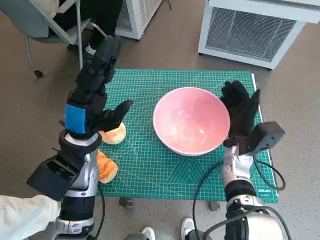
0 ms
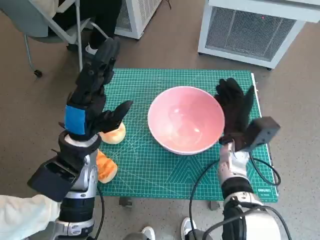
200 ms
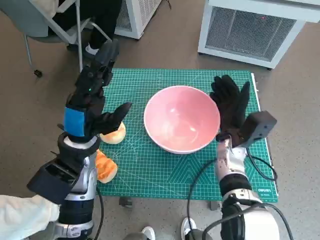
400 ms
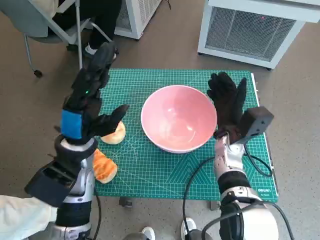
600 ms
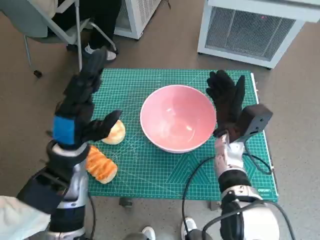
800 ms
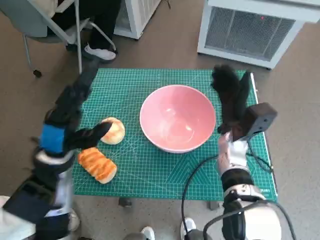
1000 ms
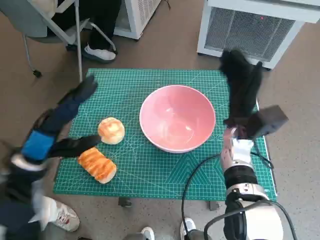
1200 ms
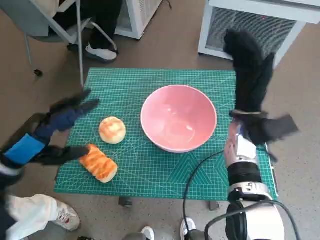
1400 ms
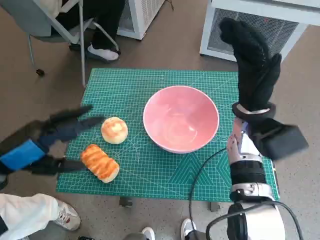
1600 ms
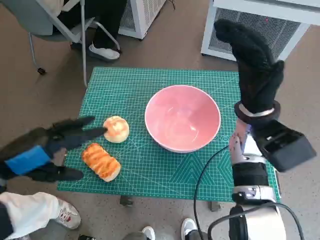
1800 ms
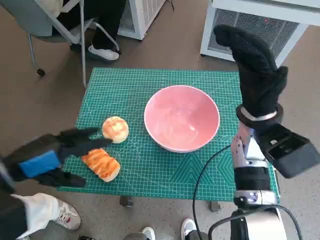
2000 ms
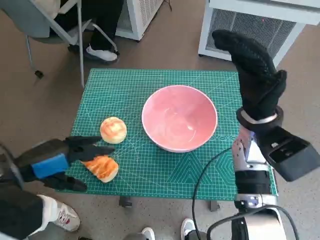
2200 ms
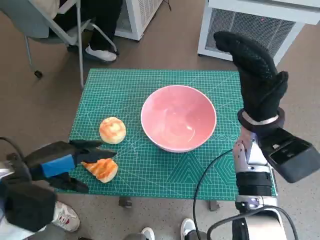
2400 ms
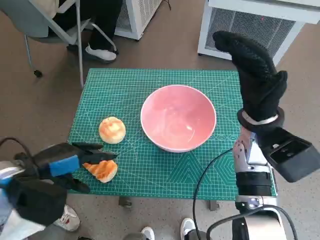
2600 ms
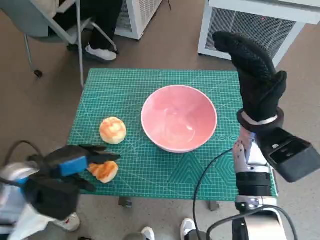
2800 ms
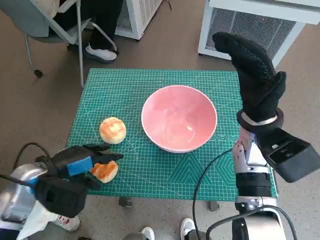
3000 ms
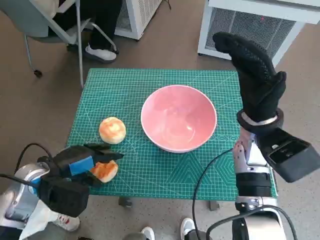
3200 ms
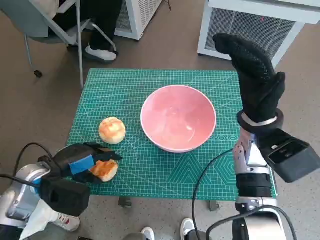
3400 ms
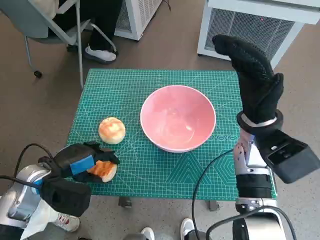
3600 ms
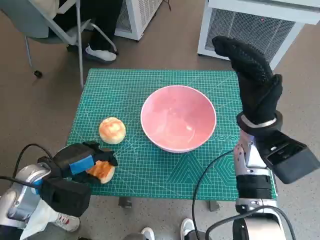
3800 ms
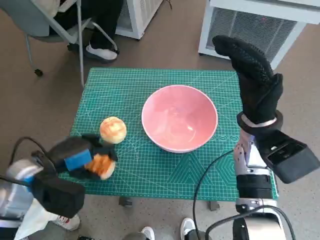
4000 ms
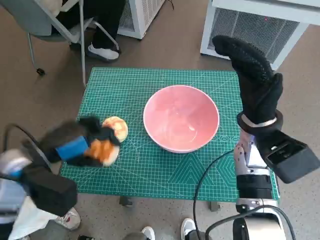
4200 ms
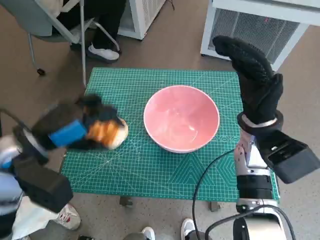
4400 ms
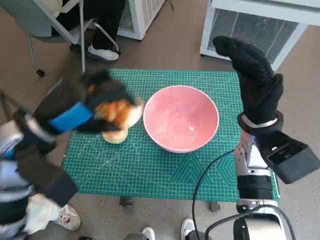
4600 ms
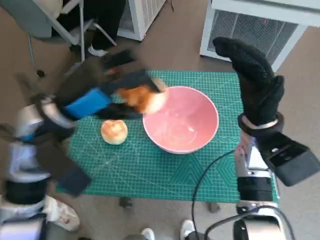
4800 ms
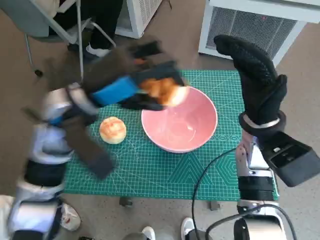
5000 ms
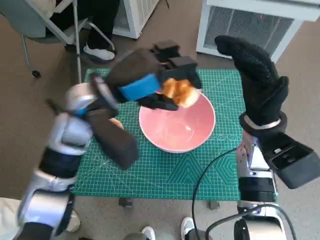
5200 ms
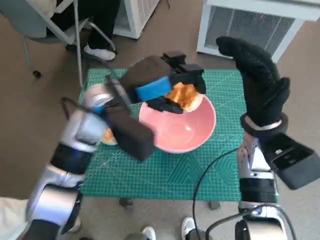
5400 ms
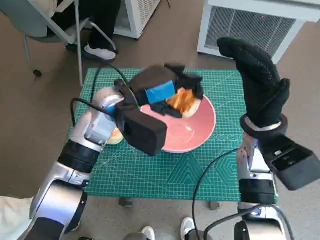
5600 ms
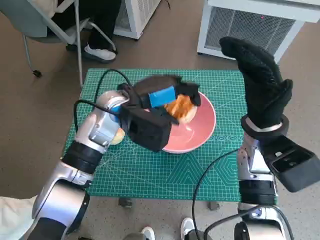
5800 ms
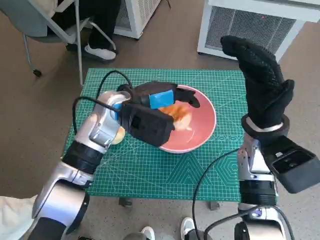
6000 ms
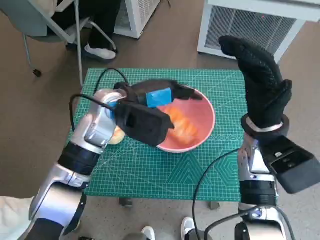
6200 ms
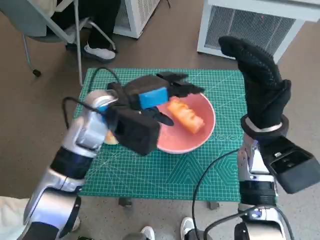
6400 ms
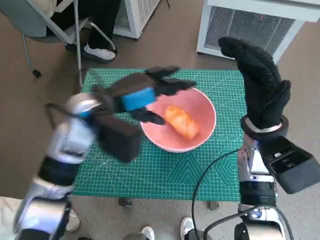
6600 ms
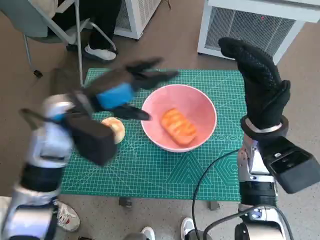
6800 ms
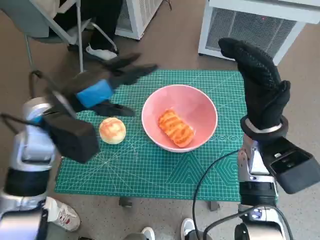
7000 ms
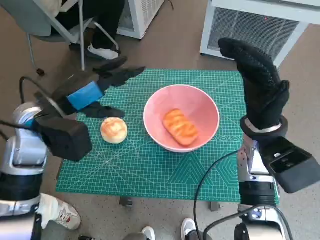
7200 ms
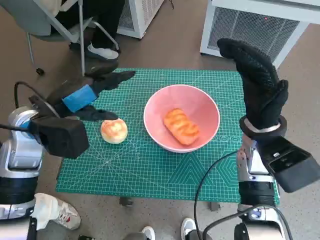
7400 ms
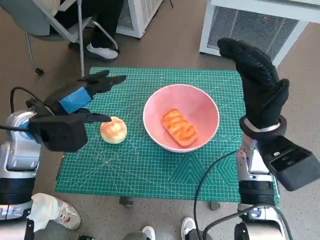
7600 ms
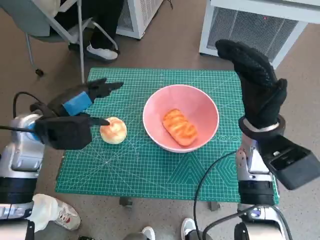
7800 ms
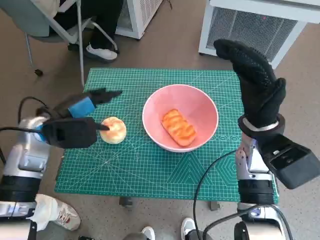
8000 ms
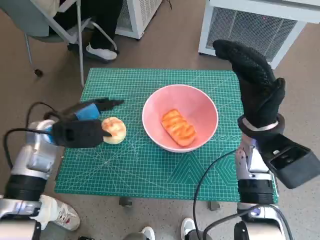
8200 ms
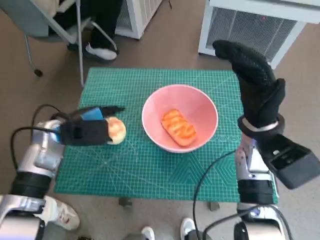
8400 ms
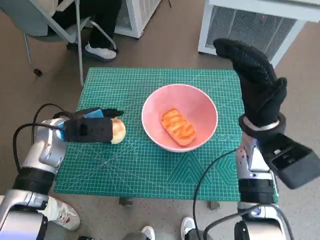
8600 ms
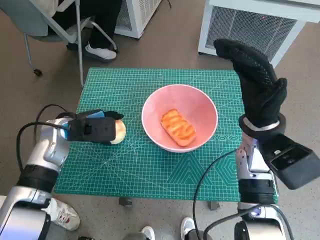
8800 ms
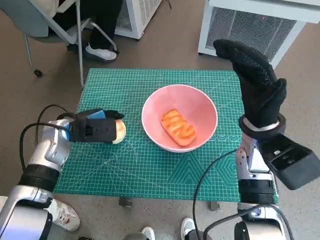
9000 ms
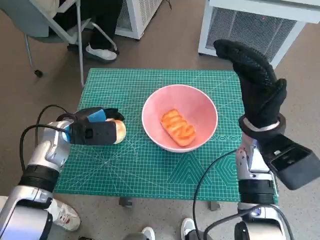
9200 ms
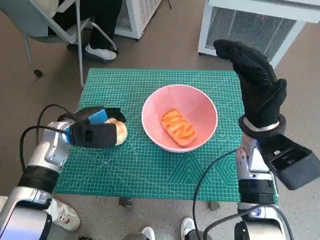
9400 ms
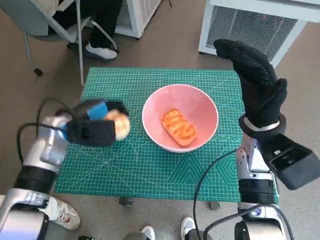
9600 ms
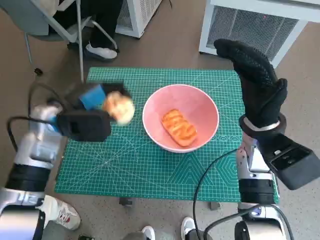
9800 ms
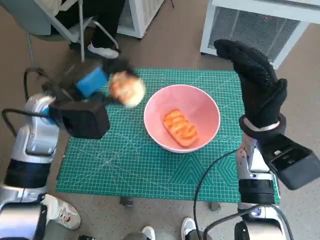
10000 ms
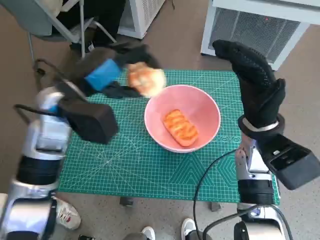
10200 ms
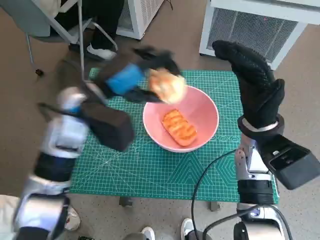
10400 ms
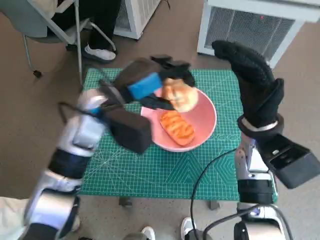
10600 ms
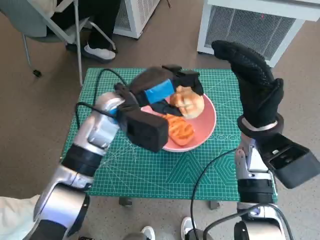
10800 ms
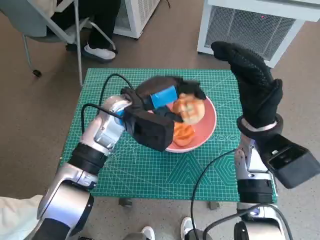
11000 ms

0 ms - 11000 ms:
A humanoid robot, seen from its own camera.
Task of the whole recording: Push the bowl to the center of the table and put the bread into the bowl.
Step, 1200 ms - 3600 ms: Grasp the long bread with left hand.
Step, 3800 ms - 6400 ms: Place the long bread in pink bowl with left hand.
Step, 6600 ms - 9200 ms: Grasp the round bread with left hand.
0 ms - 1600 ms: The right hand travels upward by about 10 cm, while the left hand travels to the left and backward by approximately 15 cm.
1600 ms - 3200 ms: The left hand shifts about 10 cm downward.
3200 ms - 4800 ms: The left hand shifts about 15 cm upward and to the right.
4800 ms - 6200 ms: The left hand is displaced to the right and forward by about 10 cm.
6200 ms - 7800 ms: The left hand moves to the left, some 15 cm.
7800 ms - 9400 ms: The left hand travels downward by roughly 5 cm.
9400 ms - 11000 ms: The left hand travels to the right and upward by some 15 cm.

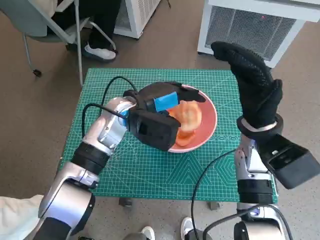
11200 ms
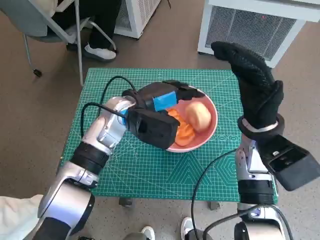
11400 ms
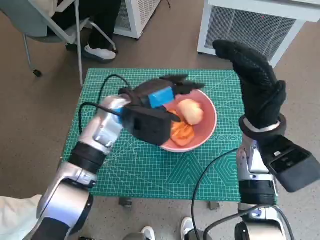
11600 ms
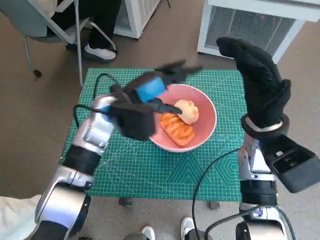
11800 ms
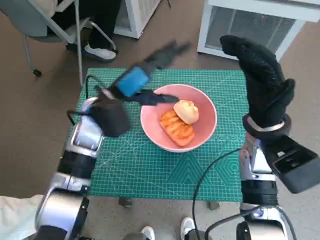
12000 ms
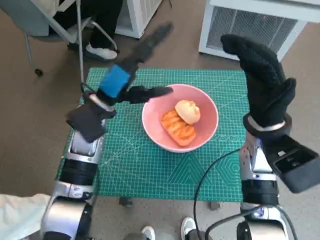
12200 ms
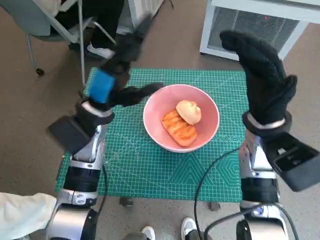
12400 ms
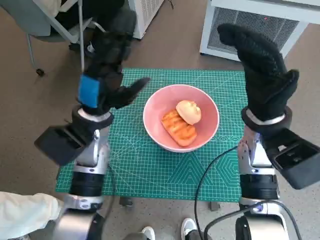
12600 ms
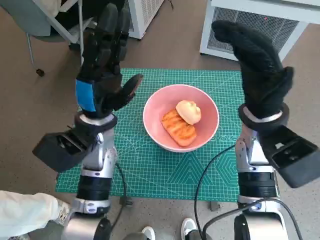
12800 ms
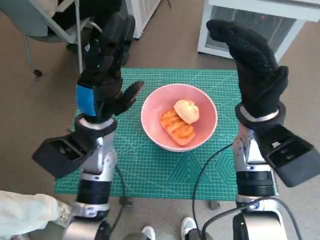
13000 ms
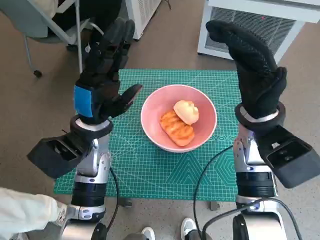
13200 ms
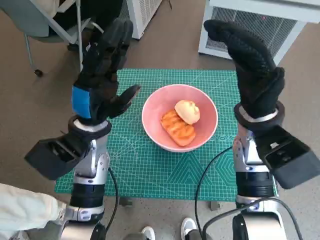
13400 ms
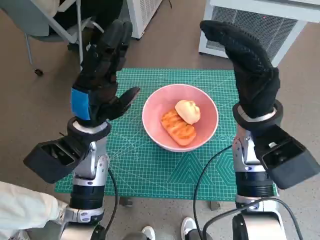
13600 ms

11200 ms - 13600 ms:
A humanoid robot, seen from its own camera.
Task of the whole recording: Push the bowl to the center of the table and put the bread into the bowl.
11200 ms - 12400 ms: The left hand is displaced to the left by about 5 cm.

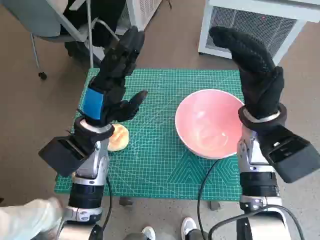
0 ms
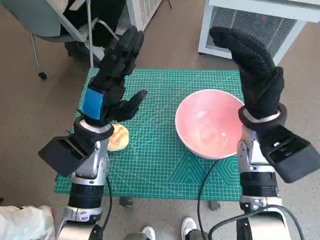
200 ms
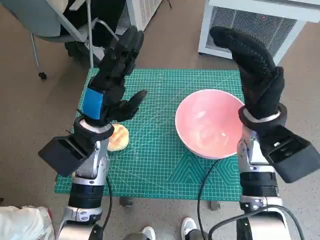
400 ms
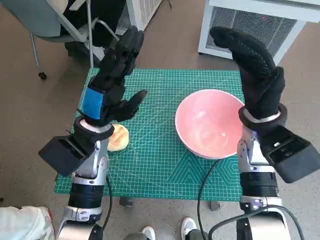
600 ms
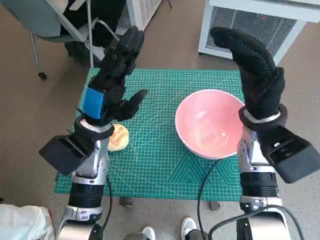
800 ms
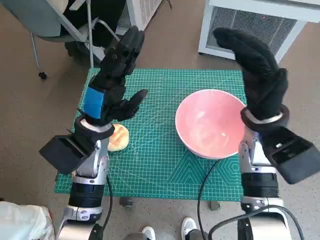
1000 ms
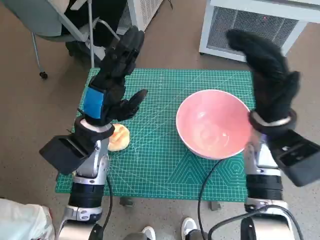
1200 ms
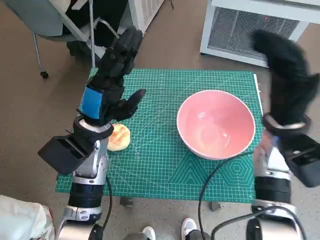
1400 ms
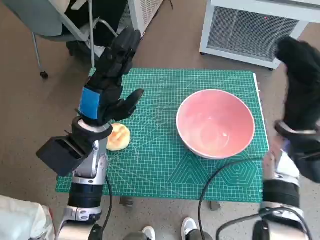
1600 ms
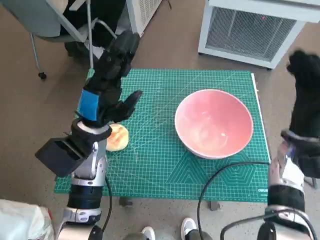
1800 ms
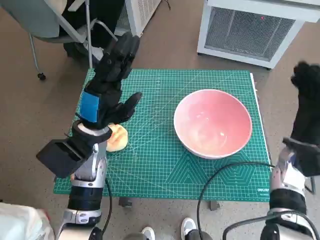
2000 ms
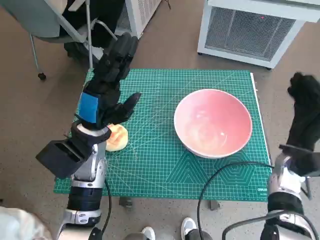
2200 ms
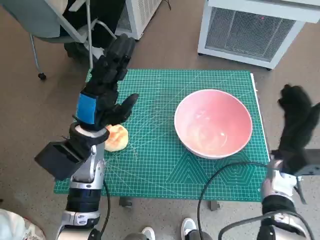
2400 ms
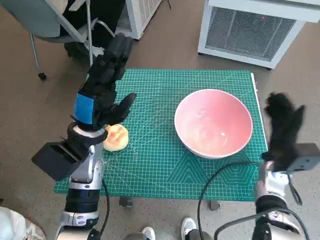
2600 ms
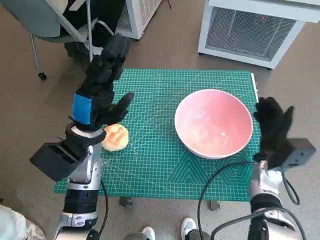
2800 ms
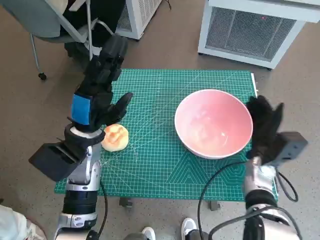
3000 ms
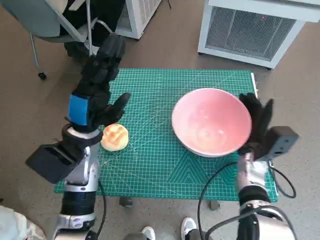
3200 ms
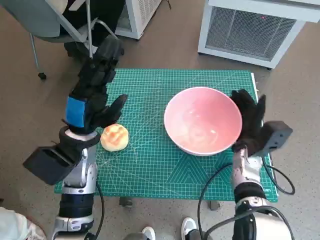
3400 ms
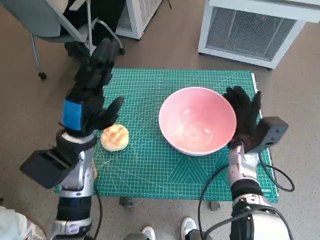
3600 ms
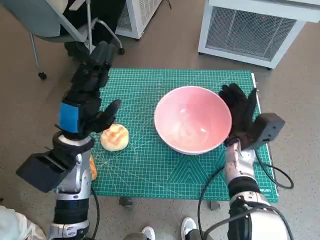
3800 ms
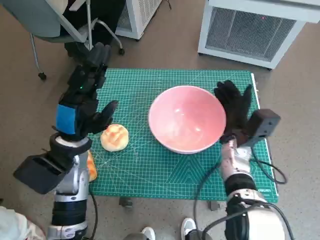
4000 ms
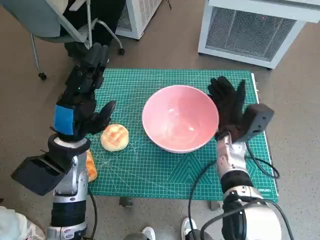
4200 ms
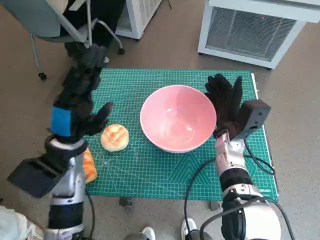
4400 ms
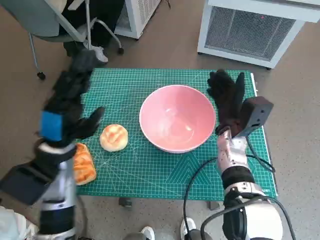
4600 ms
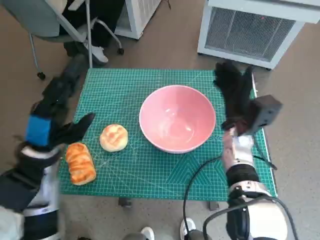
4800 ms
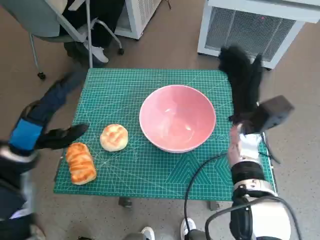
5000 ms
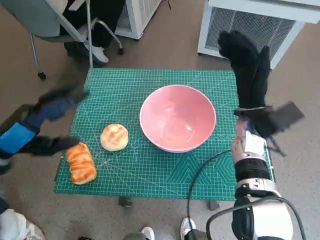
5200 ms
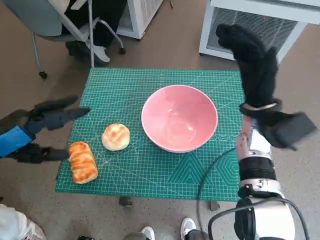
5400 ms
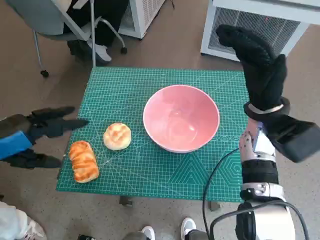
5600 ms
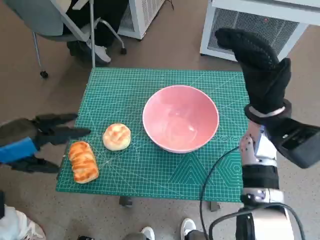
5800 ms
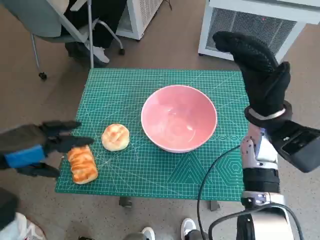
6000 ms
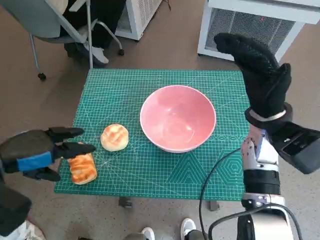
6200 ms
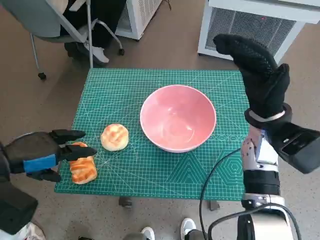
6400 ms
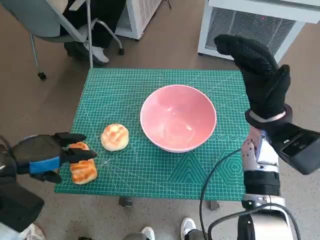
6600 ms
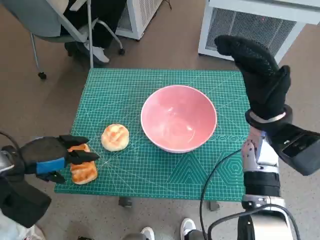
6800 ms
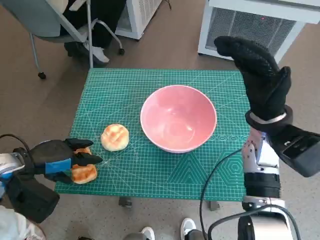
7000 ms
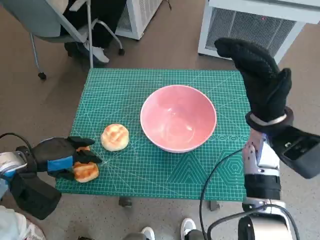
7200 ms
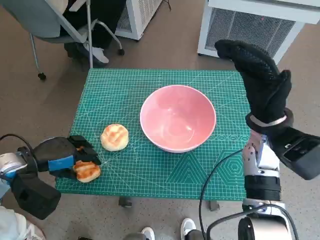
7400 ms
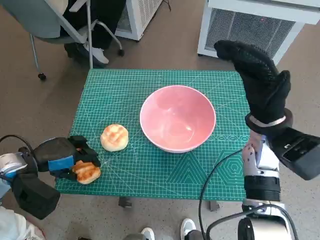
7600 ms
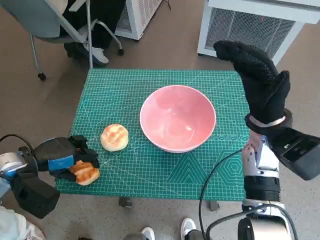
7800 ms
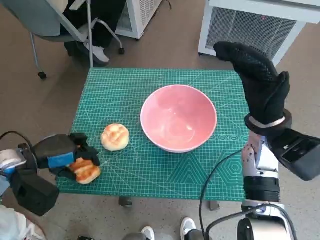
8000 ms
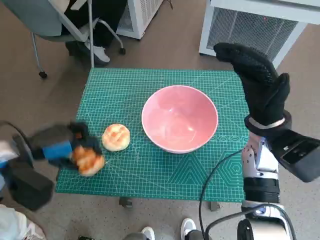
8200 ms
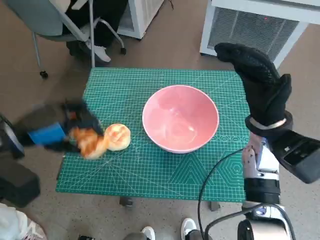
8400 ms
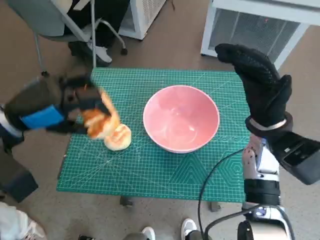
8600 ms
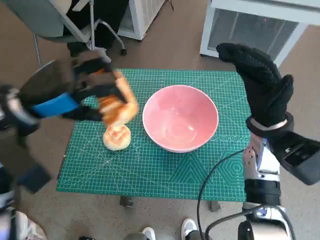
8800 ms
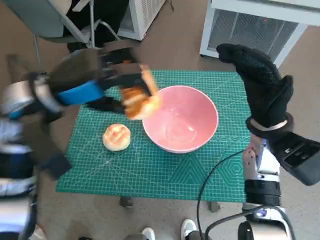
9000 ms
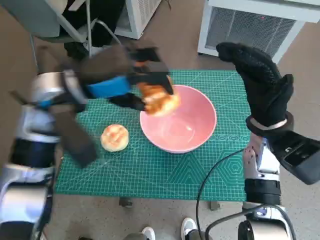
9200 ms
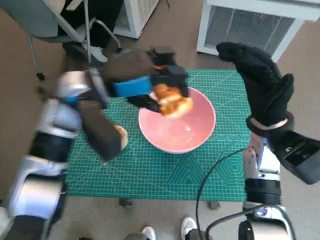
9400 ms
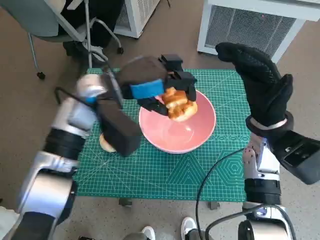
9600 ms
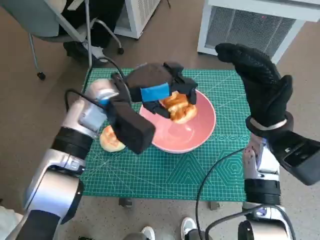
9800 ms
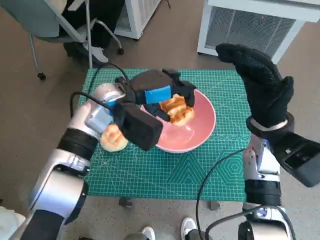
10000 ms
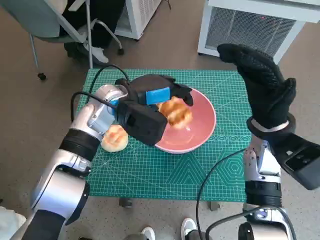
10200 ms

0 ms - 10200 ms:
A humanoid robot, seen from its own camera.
Task of the whole recording: Push the bowl to the center of the table and put the bread into the bowl.
Step, 0 ms - 4600 ms: Move the pink bowl to the center of table with right hand.
Step, 5000 ms - 7800 ms: Grasp the long bread with left hand.
1400 ms - 3000 ms: The right hand is displaced downward by some 15 cm.
3000 ms - 4400 ms: The right hand is displaced to the left by roughly 10 cm.
4400 ms - 5800 ms: The left hand heads to the left, upward and backward, covering roughly 15 cm. The right hand is displaced upward by some 10 cm.
5800 ms - 7200 ms: The left hand heads downward, covering some 10 cm.
7200 ms - 8800 ms: The left hand is displaced upward and to the right by about 15 cm.
8800 ms - 10200 ms: The left hand goes approximately 15 cm to the right, forward and downward.
